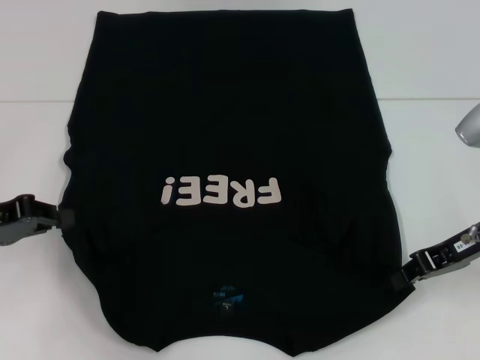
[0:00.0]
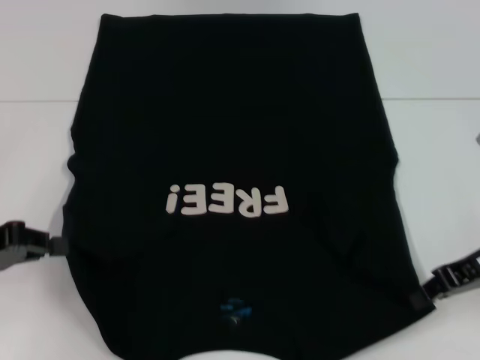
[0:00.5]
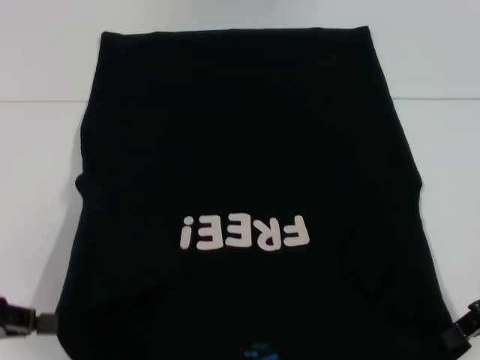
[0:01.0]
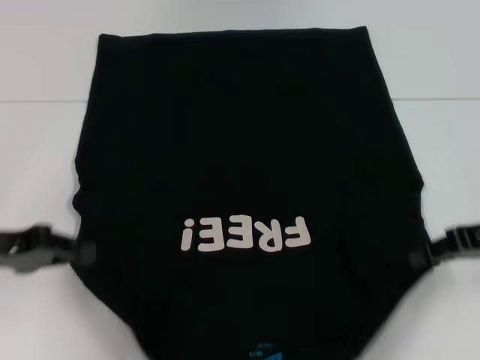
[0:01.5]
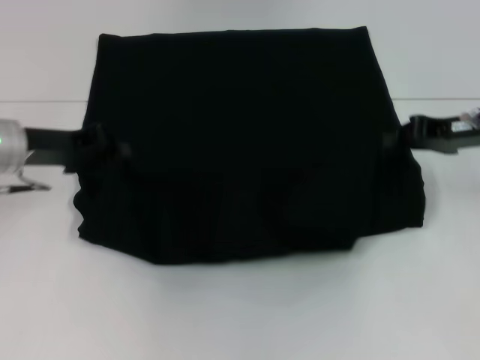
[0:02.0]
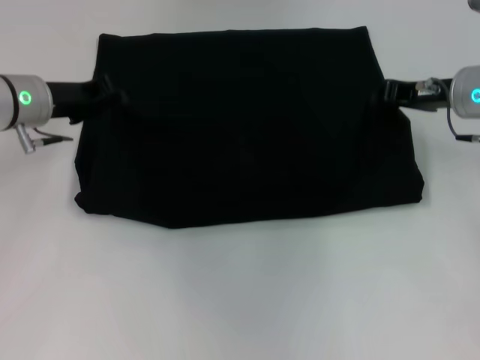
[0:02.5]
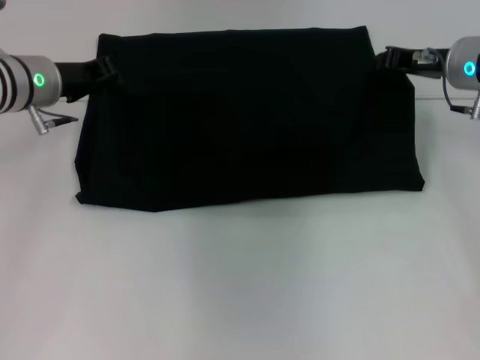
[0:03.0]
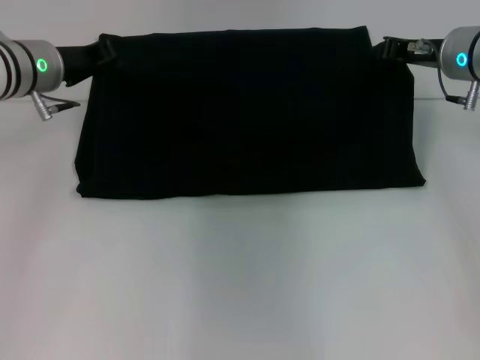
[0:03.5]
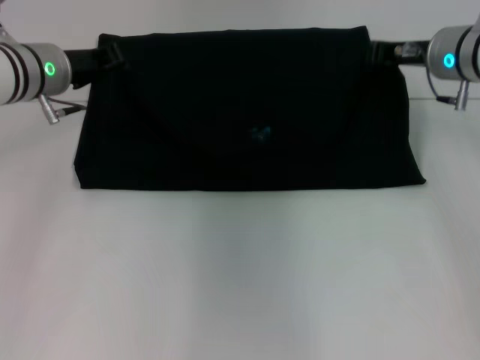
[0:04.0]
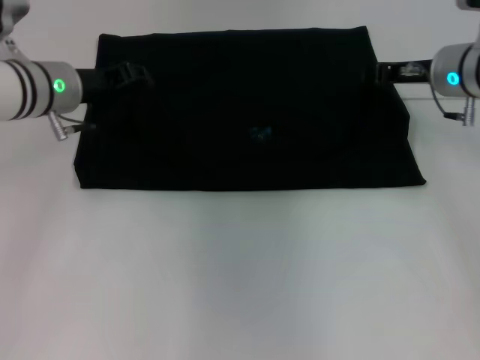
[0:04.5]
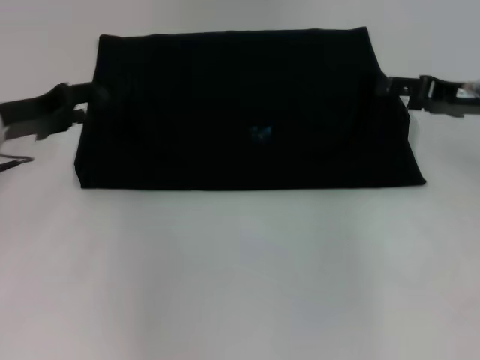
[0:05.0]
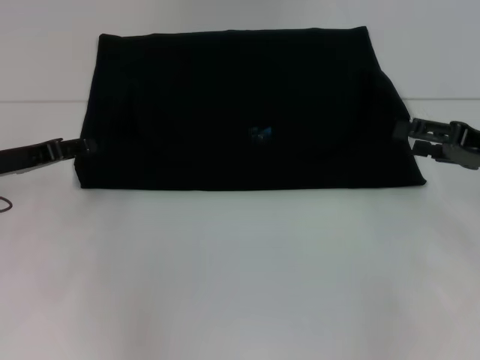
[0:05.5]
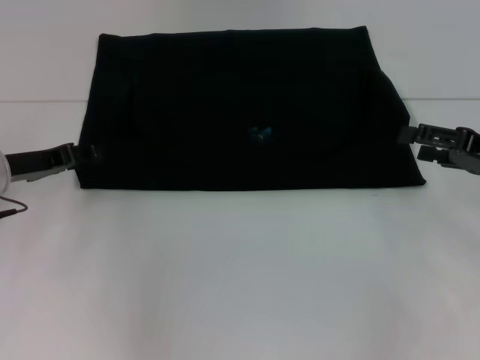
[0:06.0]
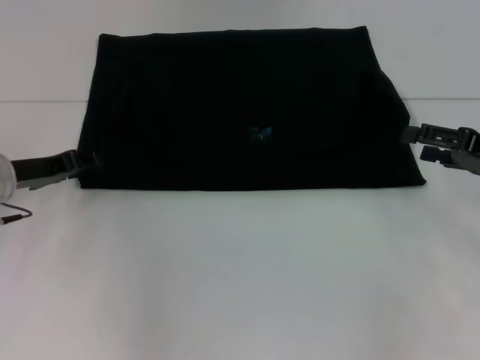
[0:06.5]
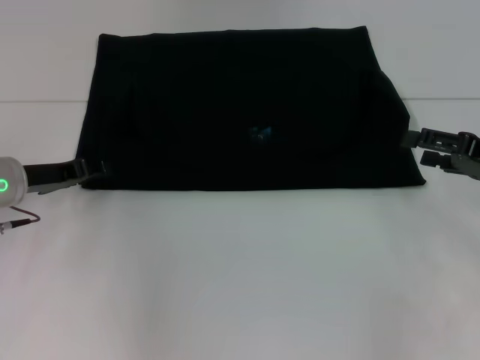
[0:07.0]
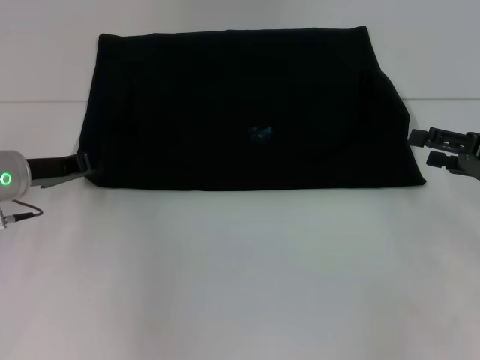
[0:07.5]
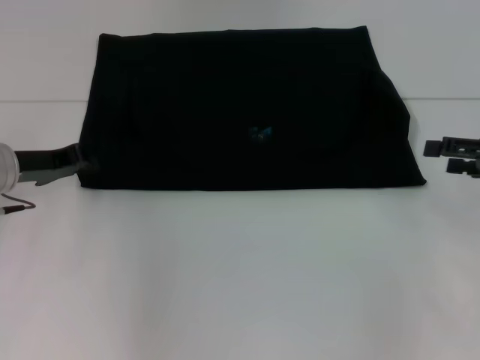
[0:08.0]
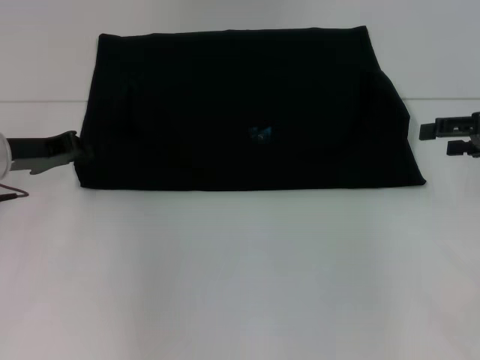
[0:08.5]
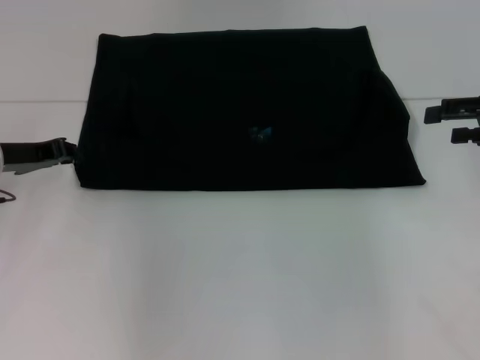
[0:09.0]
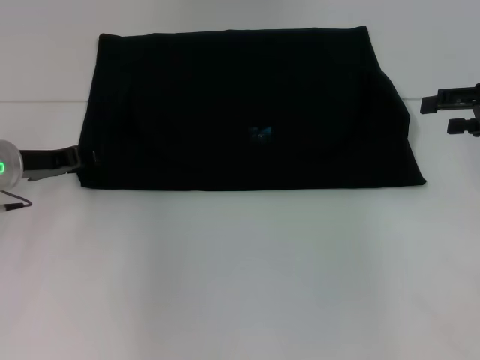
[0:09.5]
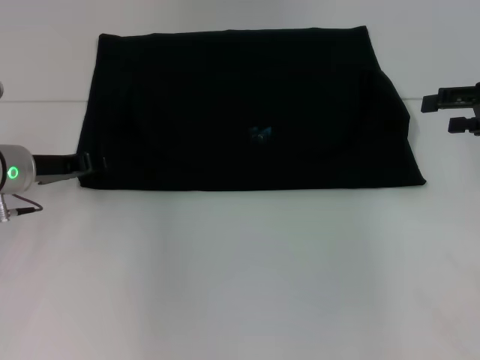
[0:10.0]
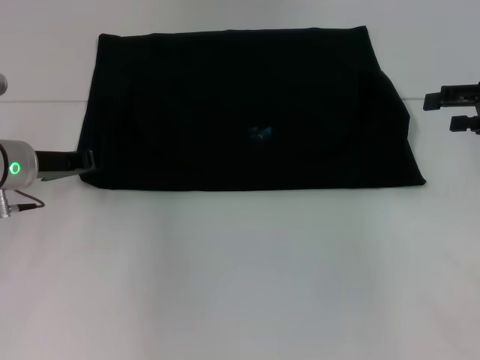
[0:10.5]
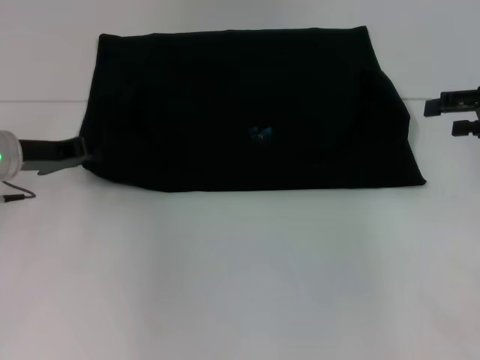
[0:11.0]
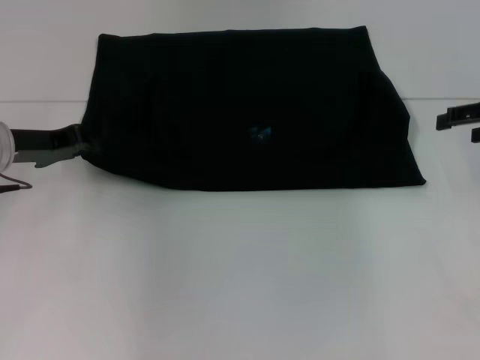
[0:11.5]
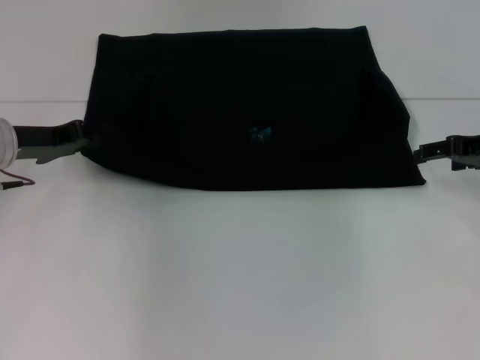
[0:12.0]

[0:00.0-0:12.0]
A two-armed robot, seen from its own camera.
Step, 0:00.5 to 0:04.5: Fold the clothes with your left hand.
Step, 0:00.5 to 0:04.5: Fold the clothes with your right hand.
0:00.0 to 0:02.0: The right gripper travels forward by roughly 5 cm, while the left gripper goes roughly 10 cm forward and to the right.
0:02.0 to 0:04.0: The left gripper heads forward, covering roughly 5 cm. The right gripper is displaced forward and to the left by some 10 cm.
0:04.0 to 0:06.0: The right gripper heads backward and to the right, covering some 15 cm, and opens its fingers; the left gripper shifts roughly 15 cm backward, to the left and downward, and opens its fingers.
0:06.0 to 0:08.0: The left gripper closes its fingers.
0:08.0 to 0:10.0: The left gripper opens. The right gripper goes some 5 cm upward.
0:10.0 to 0:12.0: The right gripper is displaced downward by approximately 5 cm; the left gripper closes its fingers.

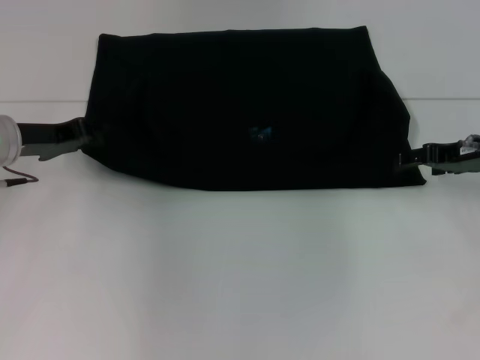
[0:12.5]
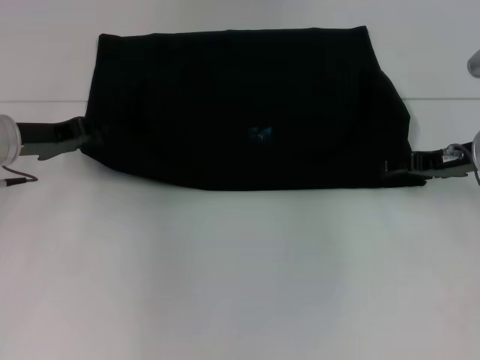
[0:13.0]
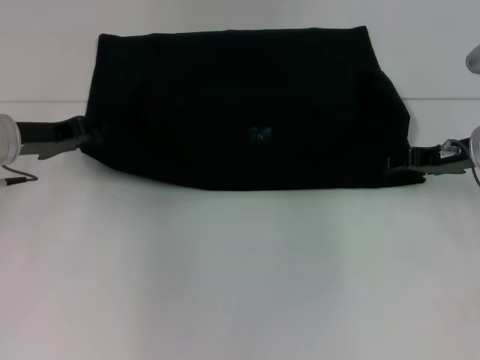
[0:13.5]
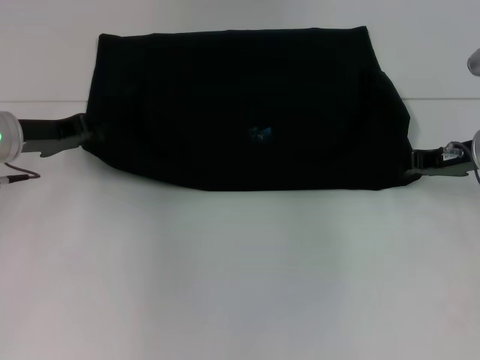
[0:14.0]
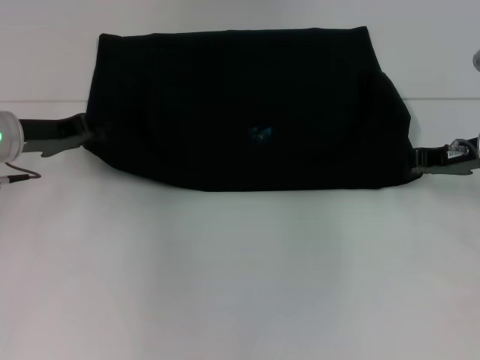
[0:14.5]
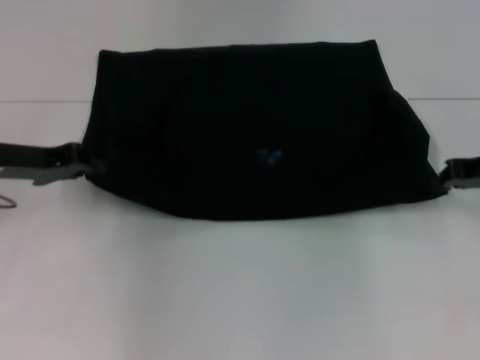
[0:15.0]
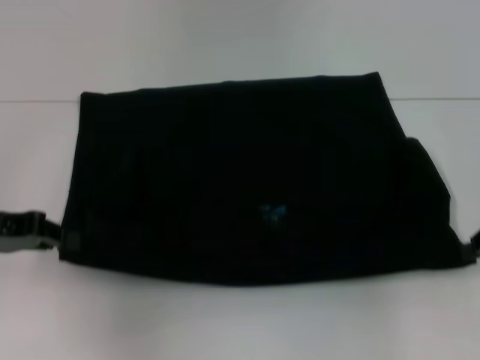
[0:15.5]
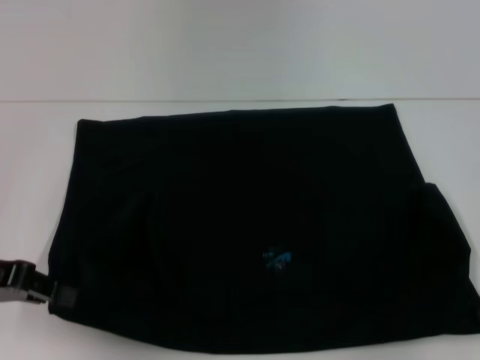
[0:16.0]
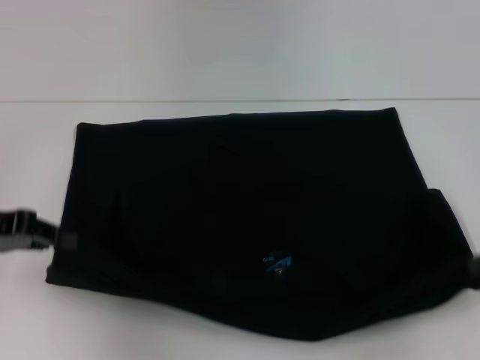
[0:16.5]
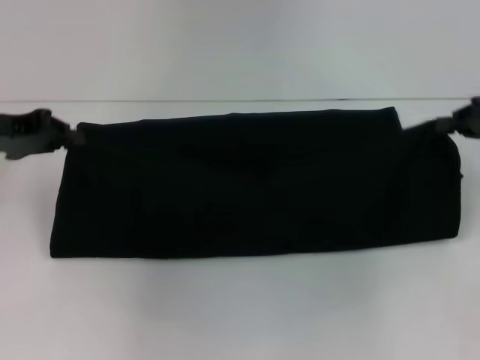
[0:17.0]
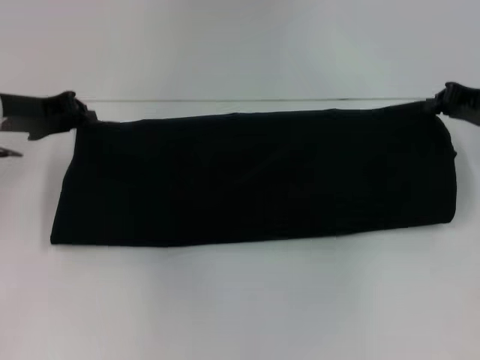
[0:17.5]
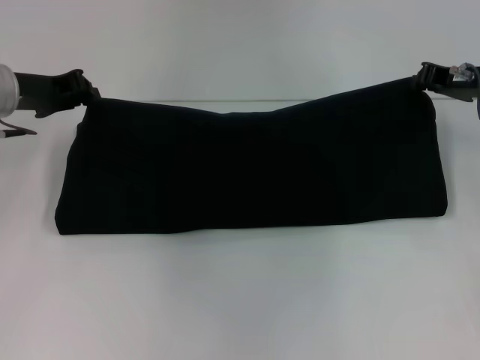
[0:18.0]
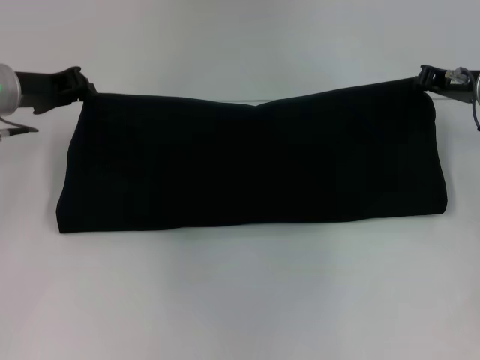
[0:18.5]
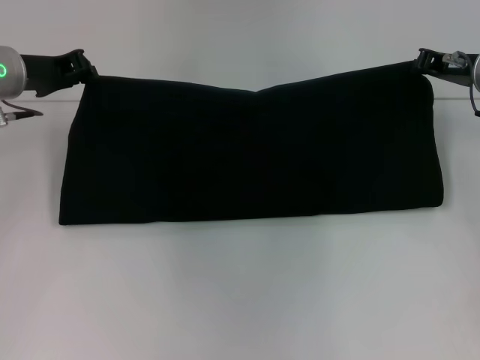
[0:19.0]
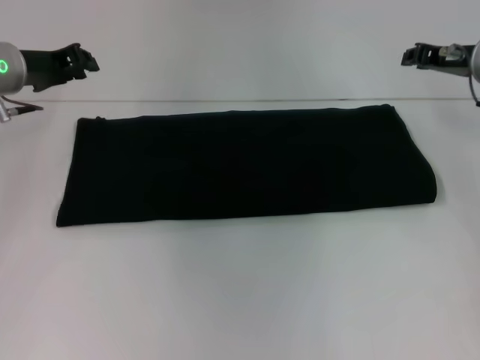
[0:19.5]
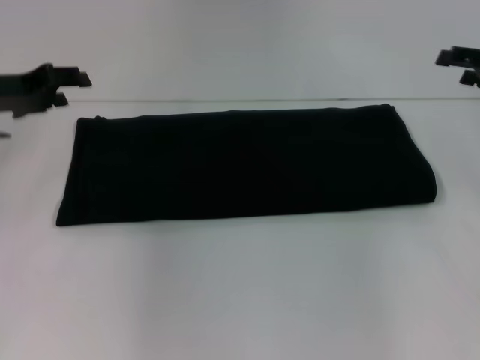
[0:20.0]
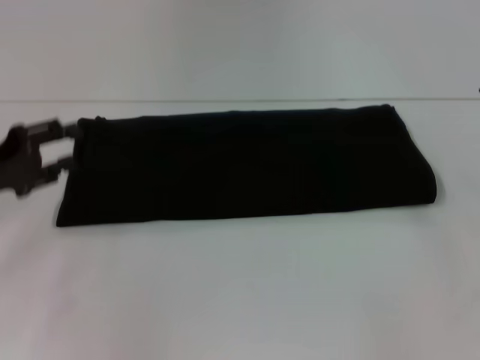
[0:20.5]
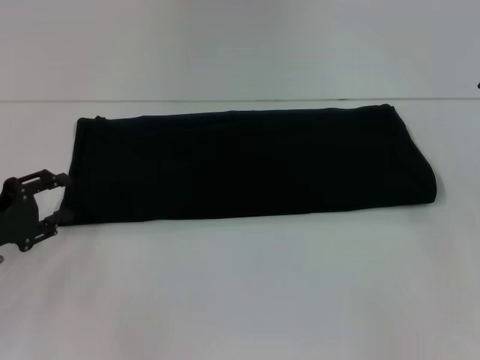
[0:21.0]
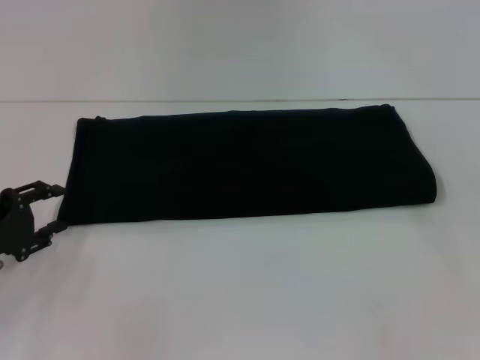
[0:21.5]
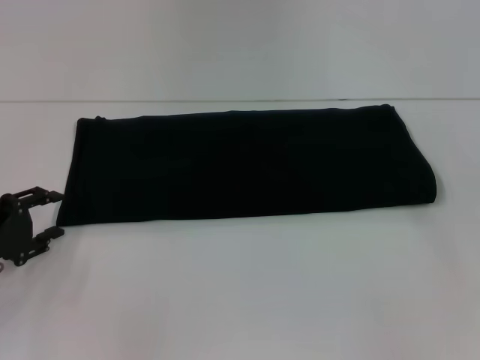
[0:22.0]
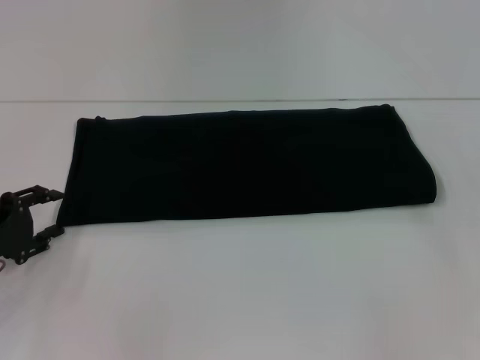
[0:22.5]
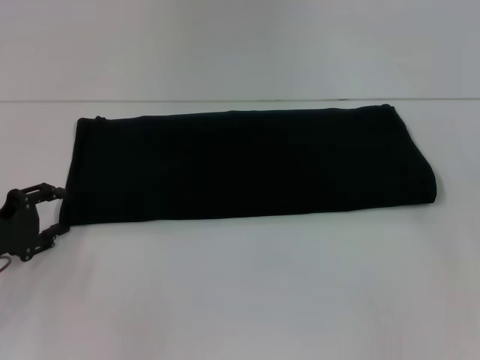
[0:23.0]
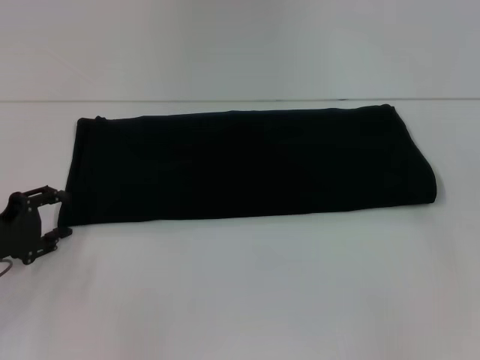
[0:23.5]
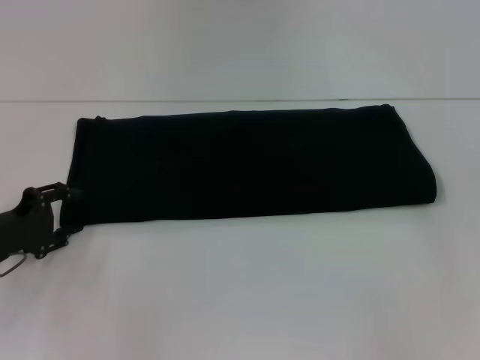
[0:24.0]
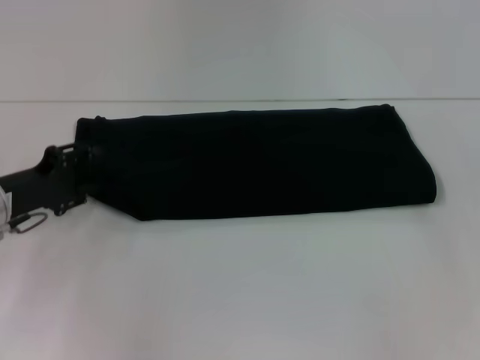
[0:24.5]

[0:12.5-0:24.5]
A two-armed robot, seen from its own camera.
Step, 0:12.5 to 0:16.0: Pull the clothes with your left hand.
Step, 0:12.5 to 0:16.0: Pull the clothes with your right hand.
Step, 0:16.5 to 0:19.5: Fold the clothes with your right hand.
0:12.5 to 0:14.5: The right gripper closes up.
0:14.5 to 0:16.5: The right gripper is displaced backward and to the right by about 15 cm. The left gripper goes about 10 cm backward.
0:16.5 to 0:18.5: The left gripper heads forward and to the right, covering approximately 15 cm, while the right gripper shifts roughly 15 cm forward and to the left.
0:18.5 to 0:20.5: The left gripper goes some 15 cm backward and to the left, and opens its fingers. The right gripper is displaced backward and to the right by about 15 cm, and opens.
0:20.5 to 0:22.5: The left gripper moves downward, some 5 cm.
0:22.5 to 0:24.5: The left gripper heads forward, covering approximately 5 cm.

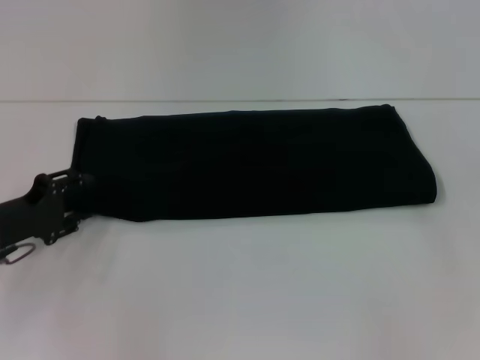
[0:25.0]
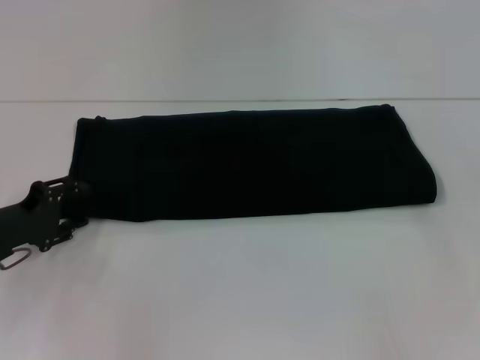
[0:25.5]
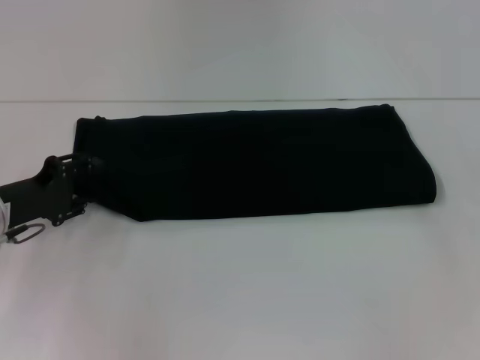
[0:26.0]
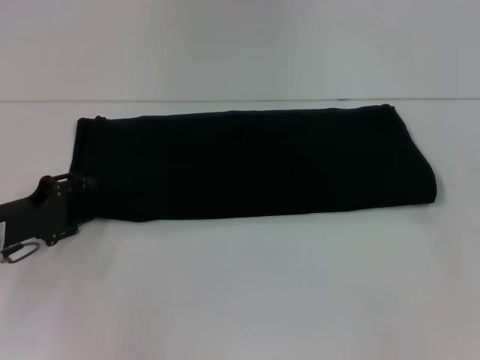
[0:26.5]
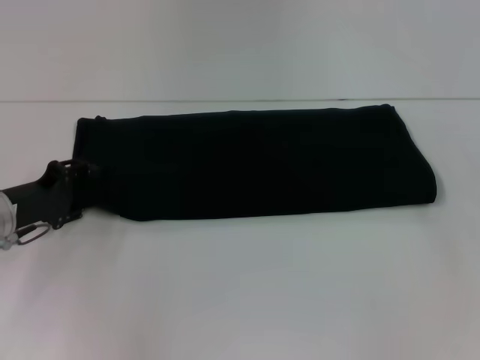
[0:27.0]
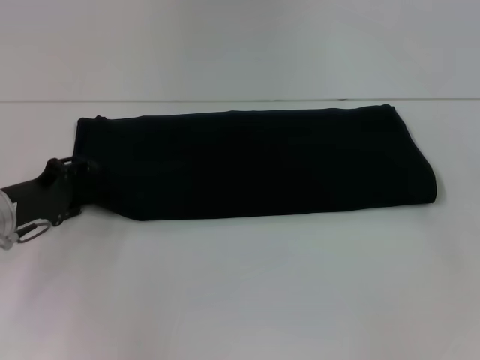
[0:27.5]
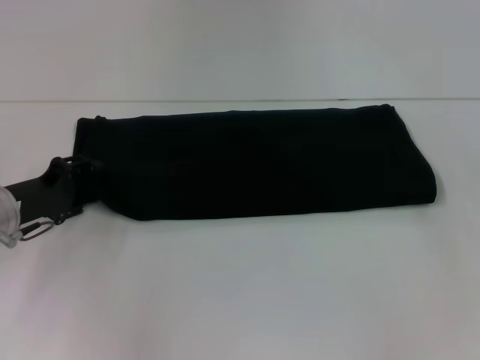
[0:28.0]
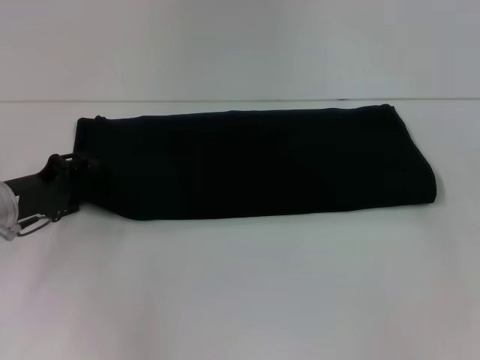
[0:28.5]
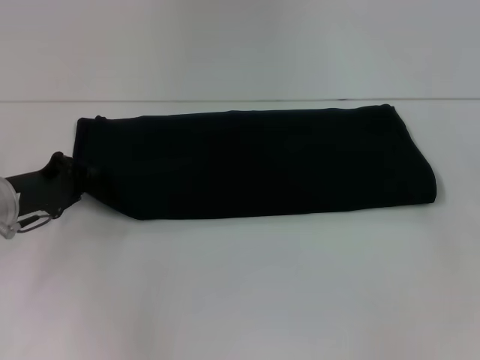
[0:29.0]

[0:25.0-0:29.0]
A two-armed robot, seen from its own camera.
0:25.0 to 0:29.0: The grippers stay close to where they were, moving slightly.
